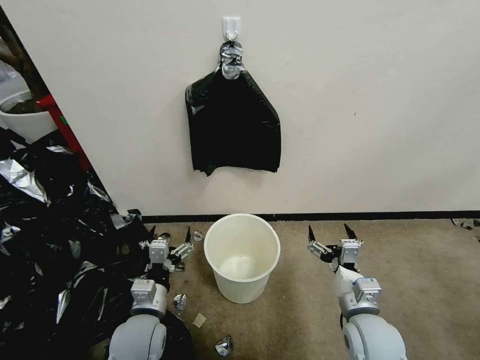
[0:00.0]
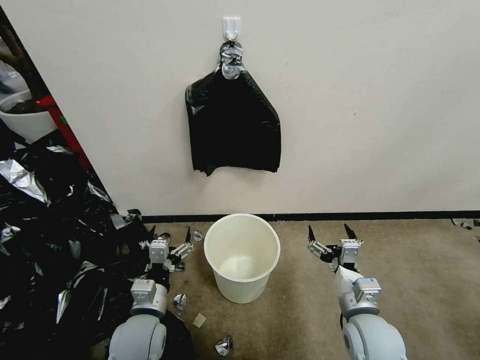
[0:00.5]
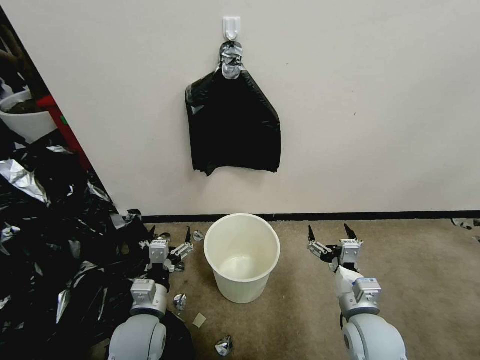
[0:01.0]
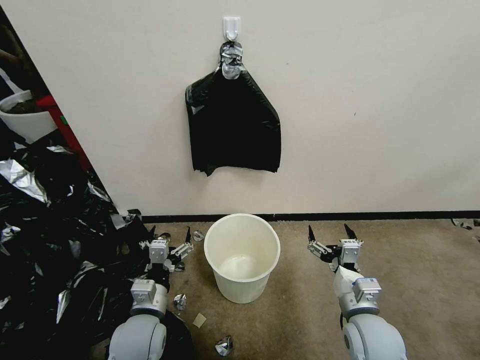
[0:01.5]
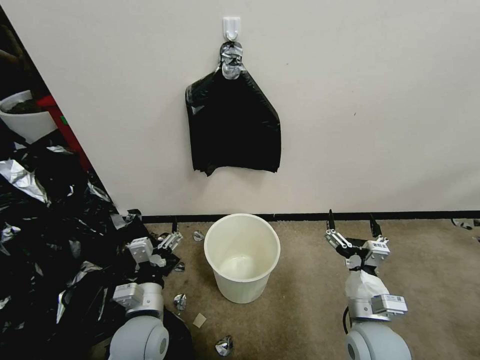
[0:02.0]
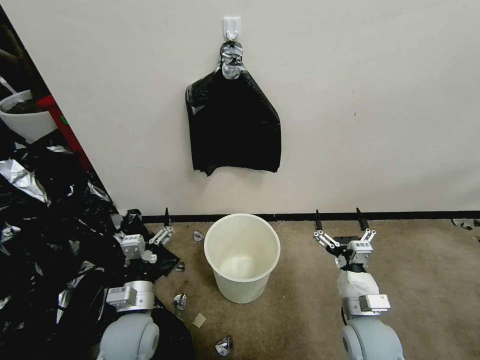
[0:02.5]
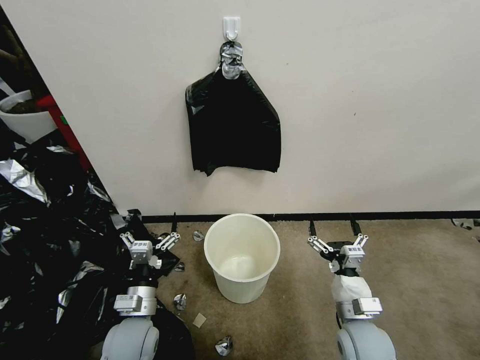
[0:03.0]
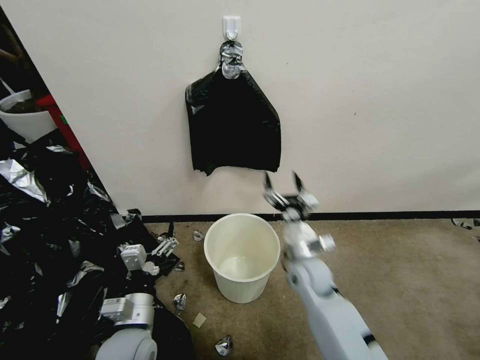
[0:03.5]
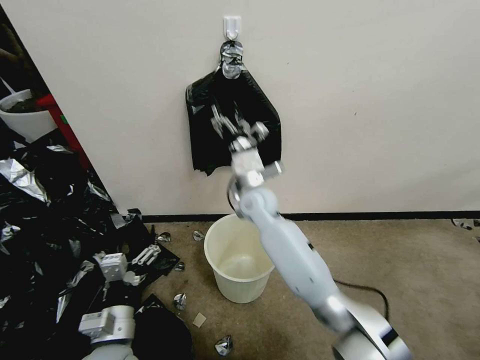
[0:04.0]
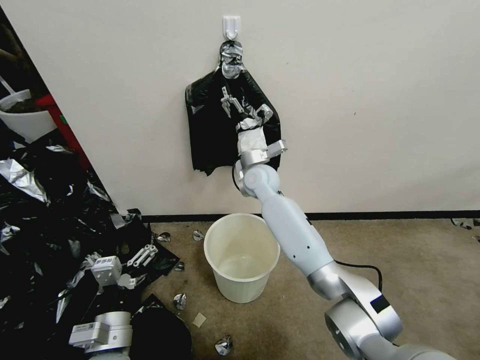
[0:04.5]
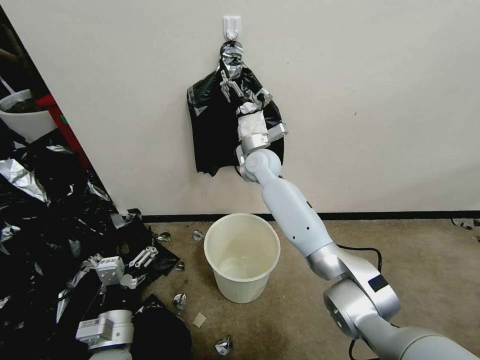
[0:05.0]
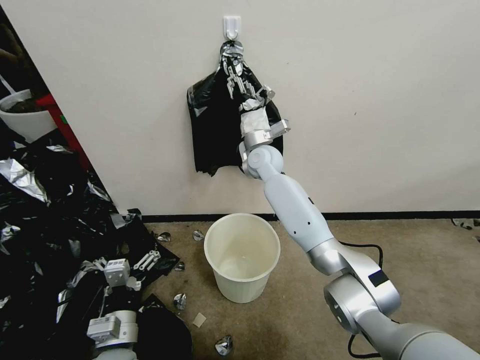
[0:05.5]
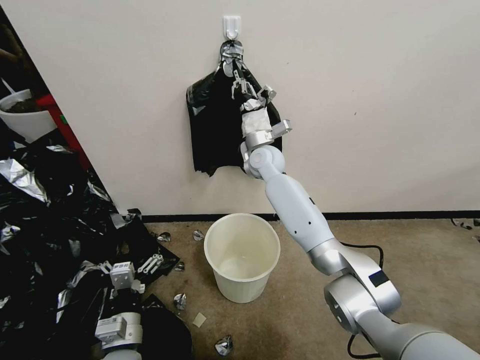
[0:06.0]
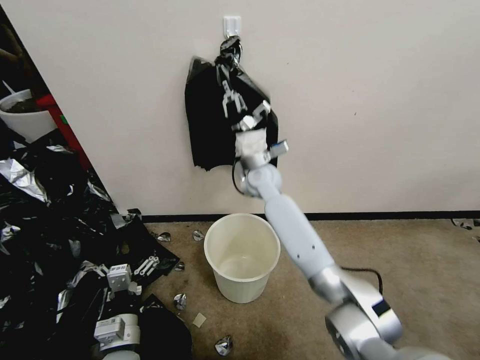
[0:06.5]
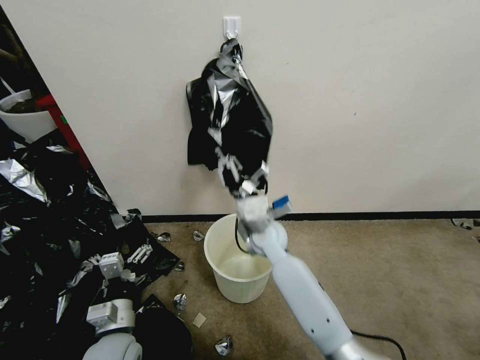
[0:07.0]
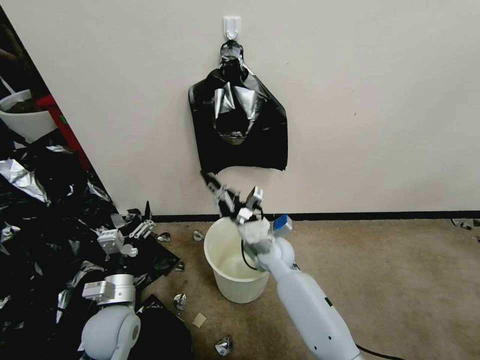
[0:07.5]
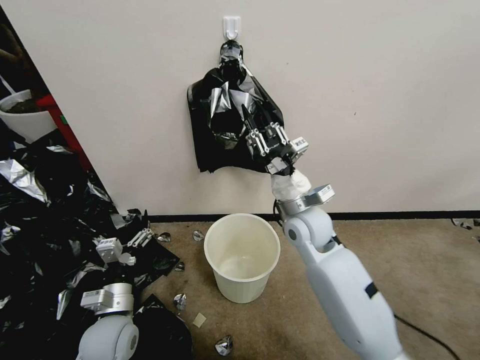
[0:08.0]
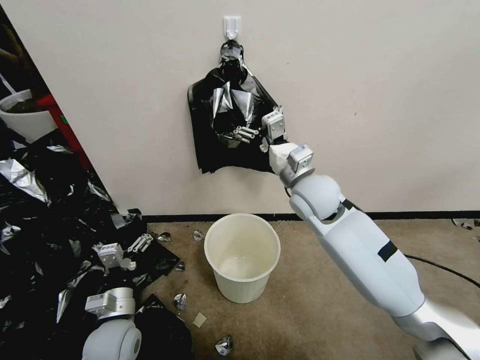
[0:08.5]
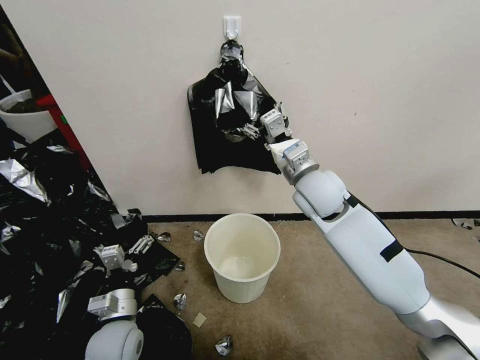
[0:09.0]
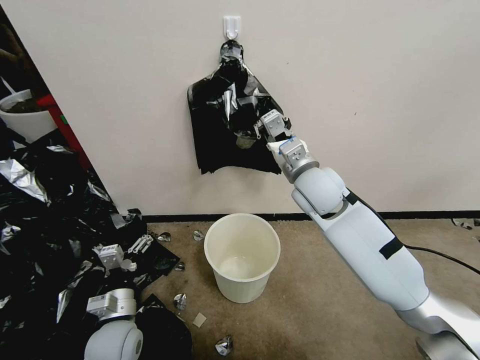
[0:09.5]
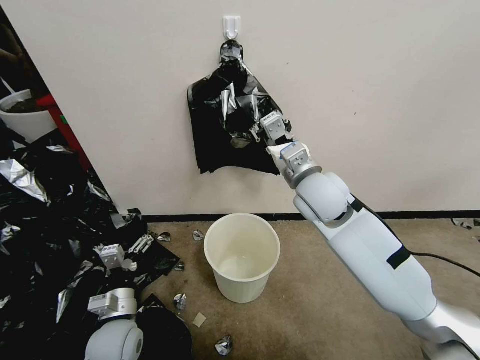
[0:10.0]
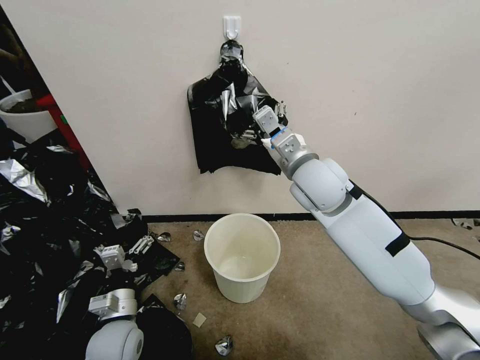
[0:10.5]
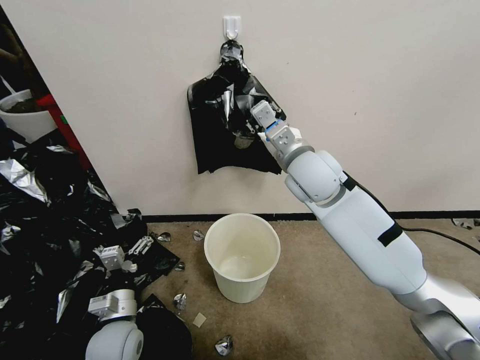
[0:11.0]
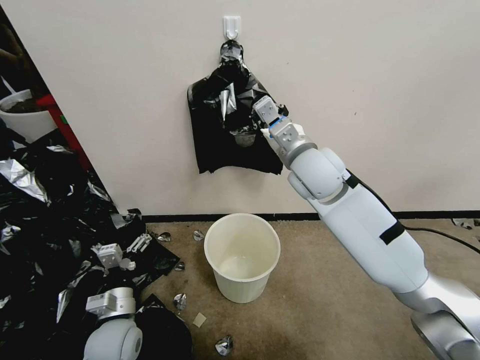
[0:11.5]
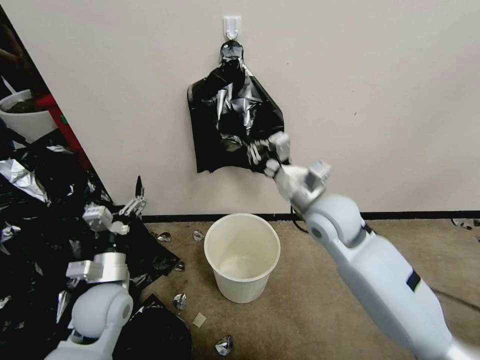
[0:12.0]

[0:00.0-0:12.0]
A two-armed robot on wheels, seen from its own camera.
Task of the whole recording: Place a trash bag onto the trash bin.
0:02.0 to 0:04.0: The right gripper goes some 35 cm forward and to the left. Meanwhile the left gripper heads backward, covering about 5 cm.
0:04.0 to 0:06.0: The right gripper heads forward, covering some 10 cm, and closes up.
0:06.0 to 0:08.0: The right gripper heads backward and to the right, covering roughly 20 cm. Meanwhile the left gripper travels forward by roughly 5 cm.
0:08.0 to 0:10.0: The right gripper moves upward, roughly 10 cm, and opens and closes again.
0:10.0 to 0:12.0: The right gripper opens and closes again. Meanwhile the left gripper heads upward, covering about 5 cm.

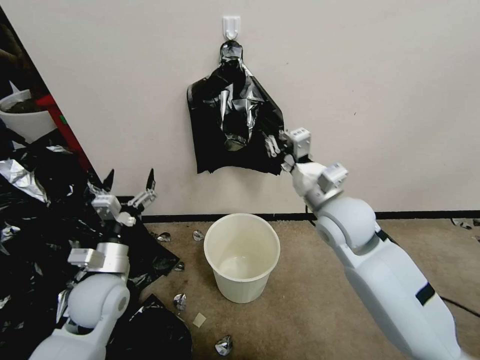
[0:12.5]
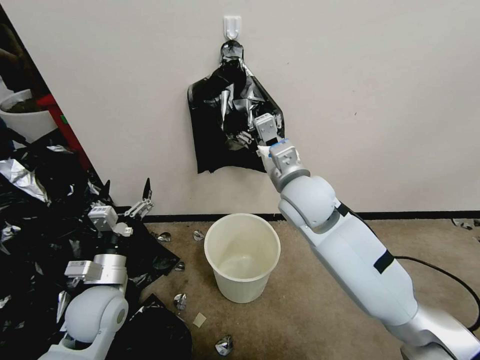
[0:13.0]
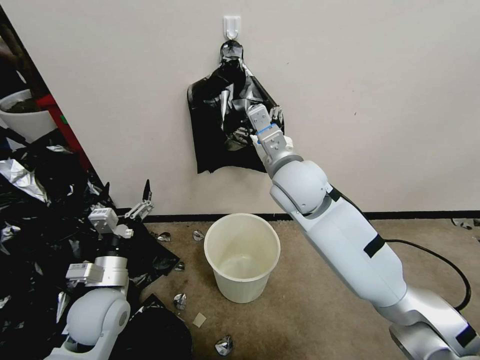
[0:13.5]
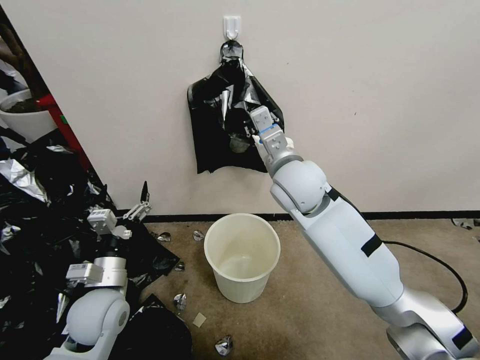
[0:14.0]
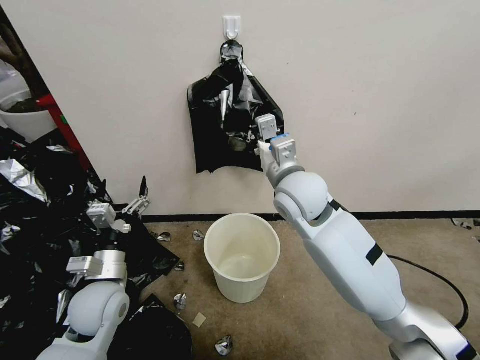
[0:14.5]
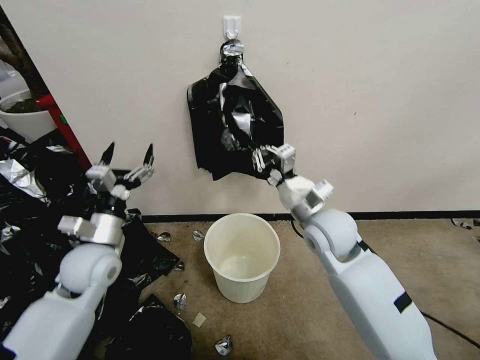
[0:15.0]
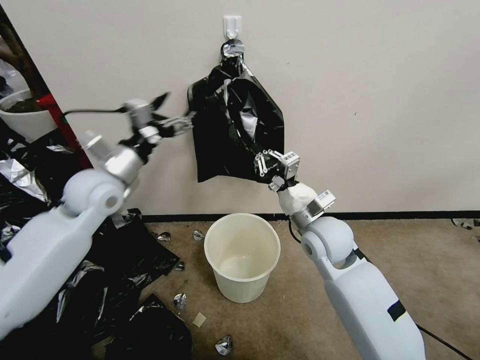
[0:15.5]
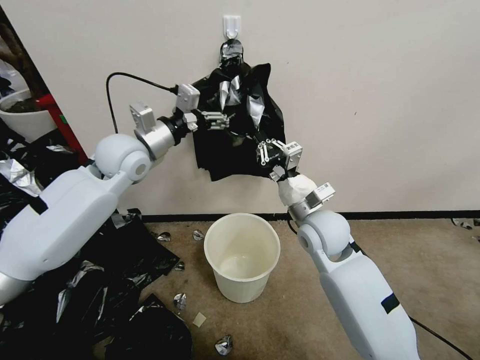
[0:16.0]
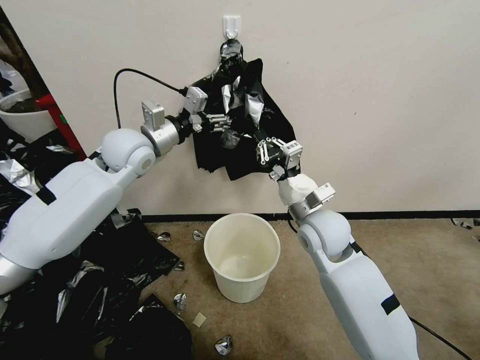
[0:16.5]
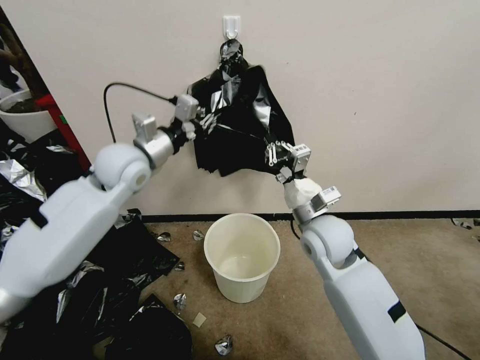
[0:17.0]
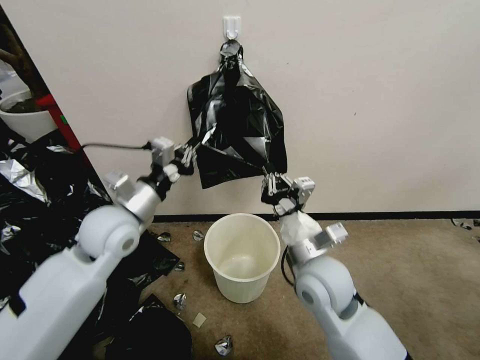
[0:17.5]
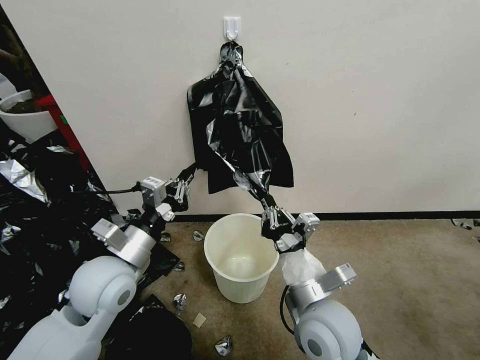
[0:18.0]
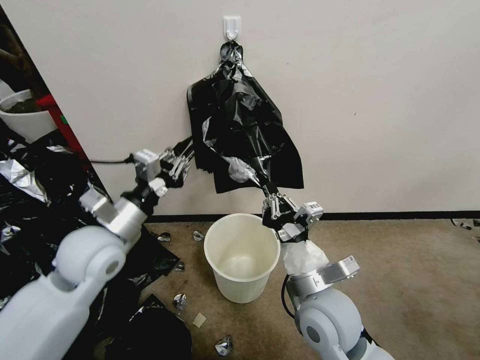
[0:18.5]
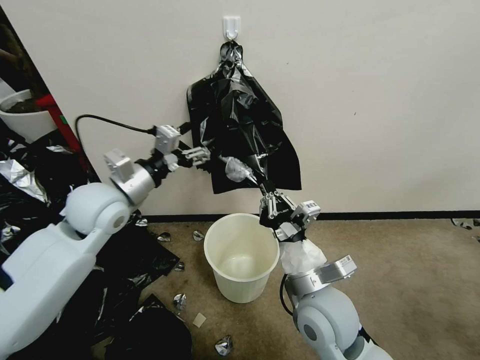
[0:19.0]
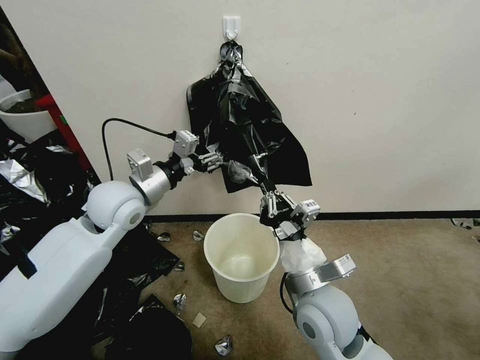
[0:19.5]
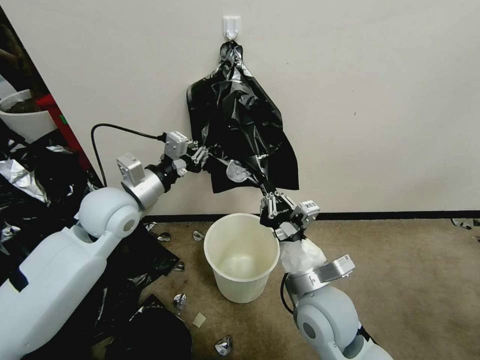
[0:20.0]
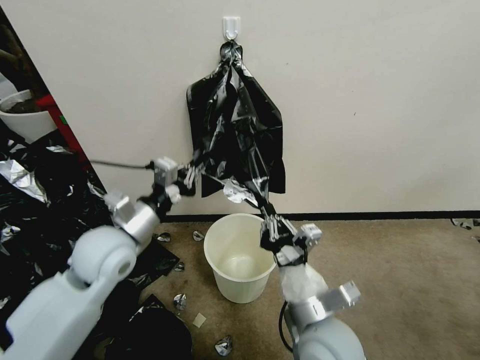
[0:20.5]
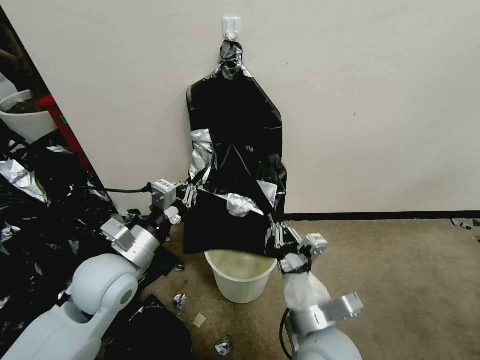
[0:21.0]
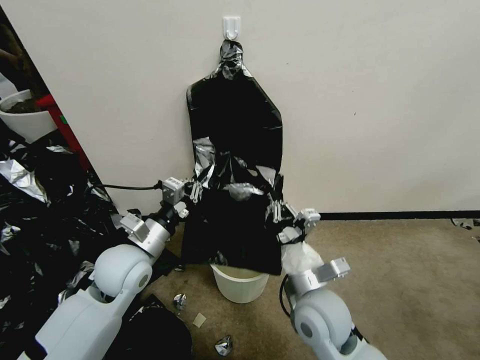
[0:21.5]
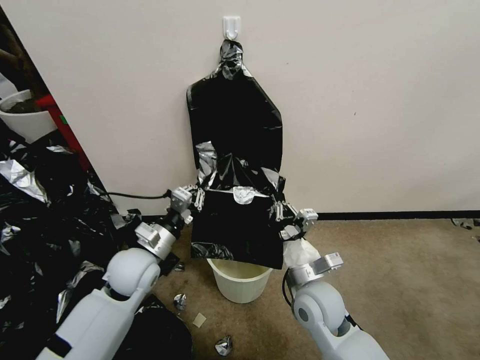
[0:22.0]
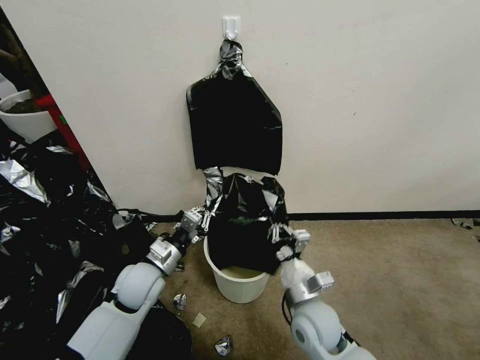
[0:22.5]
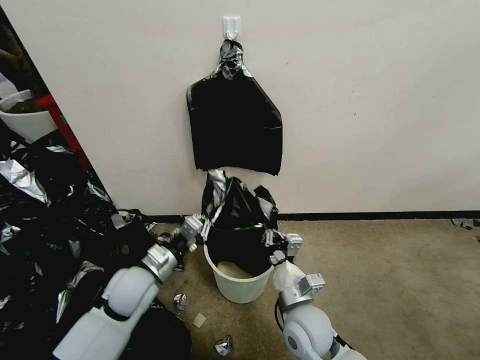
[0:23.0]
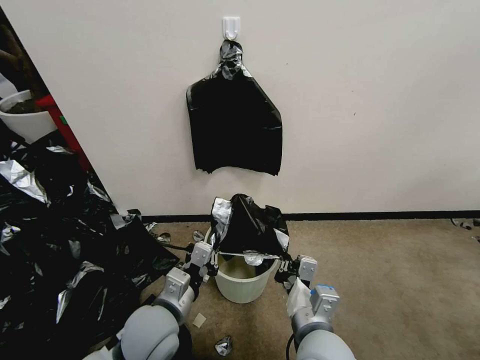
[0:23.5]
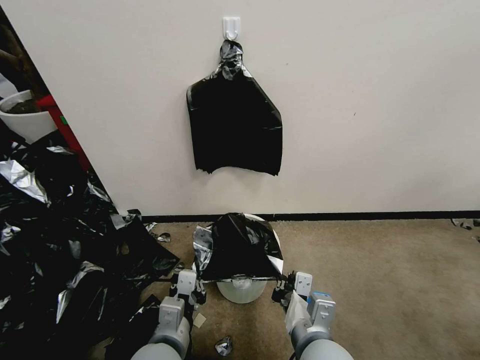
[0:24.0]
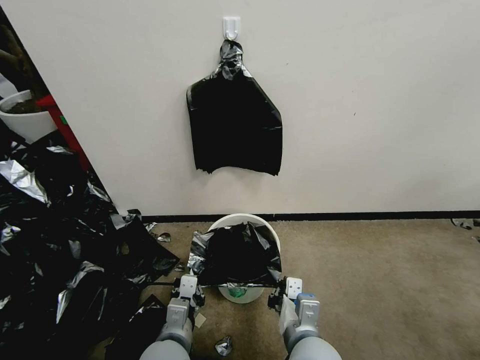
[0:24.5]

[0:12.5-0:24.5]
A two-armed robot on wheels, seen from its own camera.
Task of the whole recording: Place a trash bag onto the trash bin.
0:12.5 to 0:14.5: The right gripper shifts approximately 5 cm to the left, and opens, then closes once more.
0:14.5 to 0:16.5: The left gripper travels forward and upward by approximately 30 cm, while the right gripper is displaced downward and to the right by roughly 10 cm.
0:16.5 to 0:18.5: The left gripper travels backward and downward by roughly 20 cm, and closes up, while the right gripper goes about 15 cm backward.
0:18.5 to 0:20.5: The left gripper reaches about 10 cm forward, then returns, and opens, then closes again.
0:20.5 to 0:22.5: The left gripper travels downward by about 15 cm, while the right gripper travels downward and forward by some 15 cm.
0:22.5 to 0:24.5: The right gripper heads backward, covering roughly 10 cm. The left gripper goes roughly 15 cm backward and to the right.

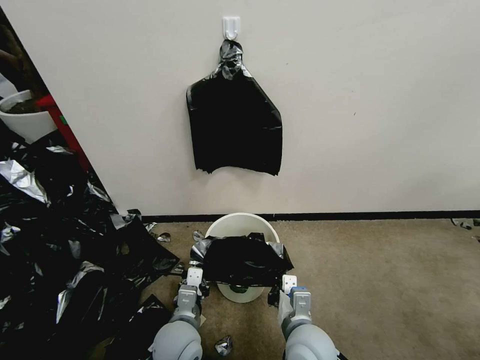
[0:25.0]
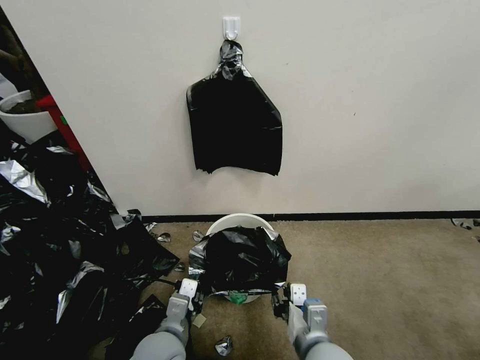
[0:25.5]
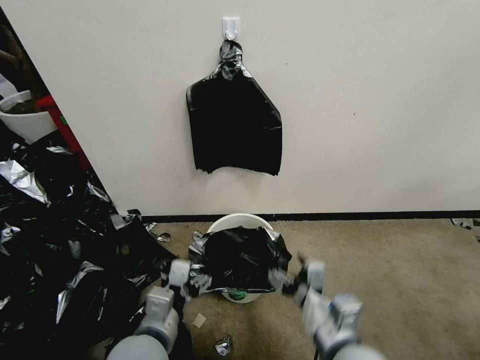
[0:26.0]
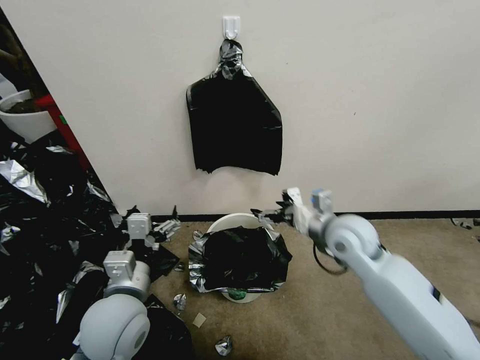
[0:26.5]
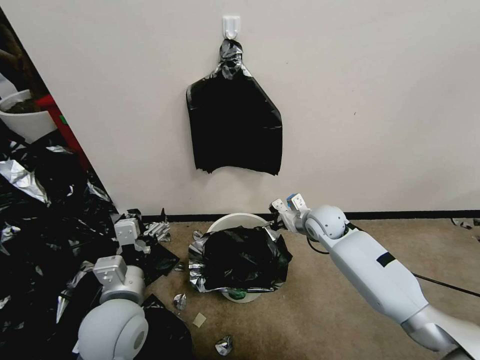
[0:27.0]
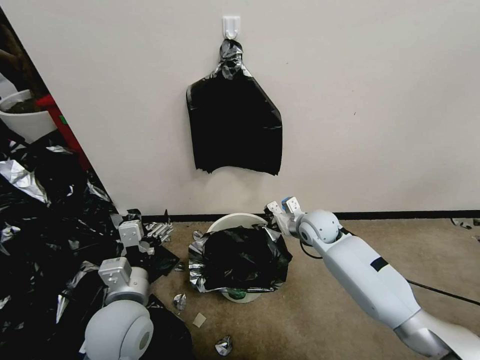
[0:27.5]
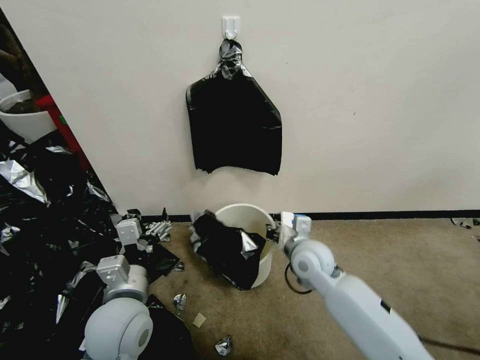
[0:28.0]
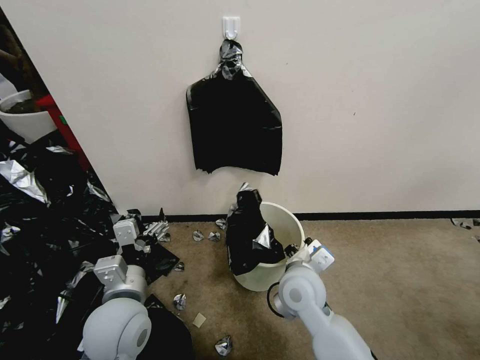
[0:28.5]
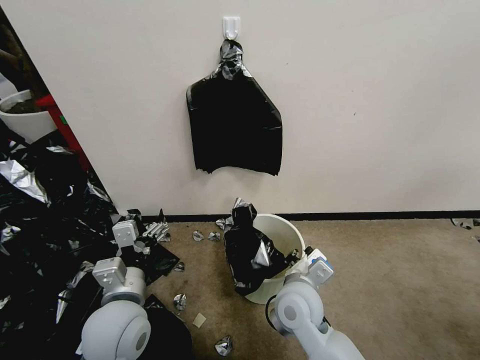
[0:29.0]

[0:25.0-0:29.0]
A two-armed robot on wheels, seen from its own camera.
Task of the whole recording: Place a trash bag onto the trash bin.
0:25.0 to 0:27.0: The left gripper goes about 15 cm upward and to the left, and opens its fingers. Meanwhile the right gripper is displaced forward by approximately 30 cm, and opens its fingers.
0:27.0 to 0:29.0: The right gripper heads backward and to the left, covering approximately 25 cm, and closes.
